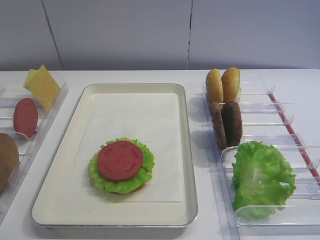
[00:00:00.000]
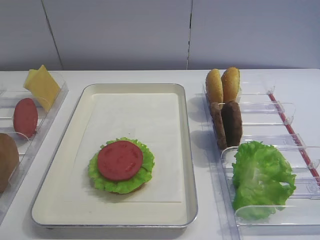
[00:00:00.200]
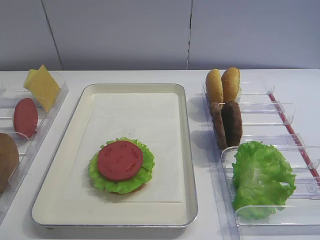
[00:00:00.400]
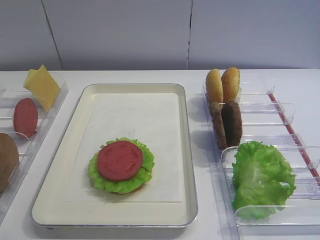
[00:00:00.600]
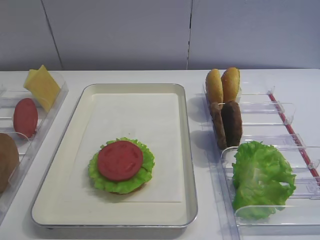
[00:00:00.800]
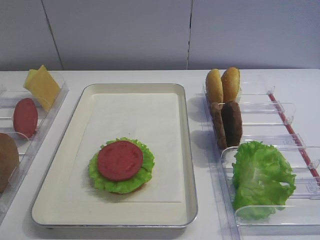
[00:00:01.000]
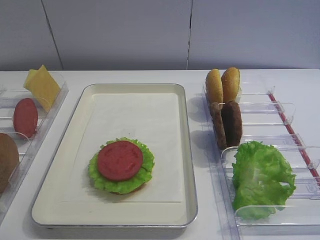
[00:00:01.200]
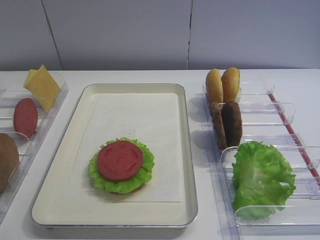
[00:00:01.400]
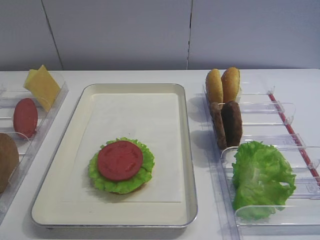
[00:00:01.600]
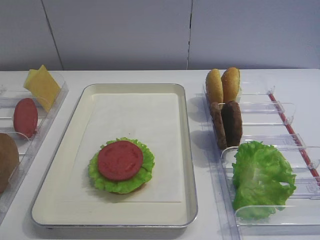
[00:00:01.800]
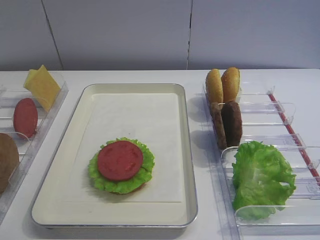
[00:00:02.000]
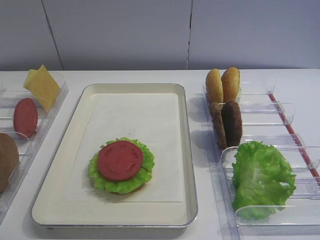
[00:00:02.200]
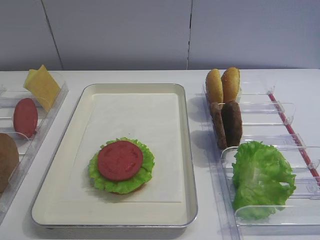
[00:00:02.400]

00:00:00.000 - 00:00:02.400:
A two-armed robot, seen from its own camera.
00:00:00.000 - 00:00:02.400: Both grippers stay put.

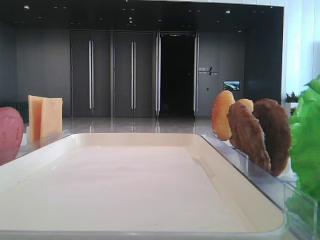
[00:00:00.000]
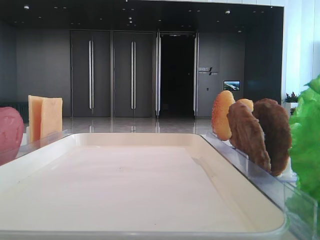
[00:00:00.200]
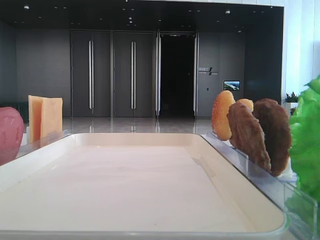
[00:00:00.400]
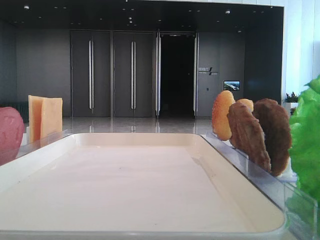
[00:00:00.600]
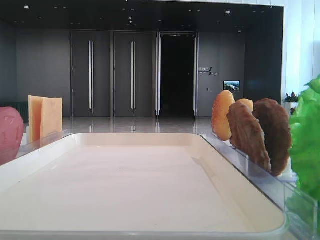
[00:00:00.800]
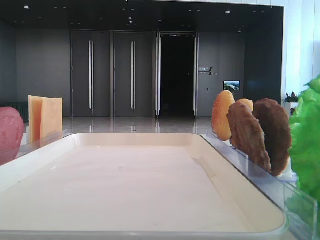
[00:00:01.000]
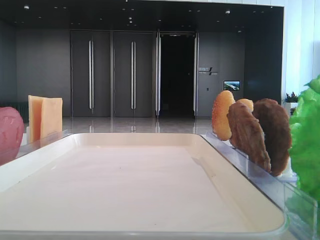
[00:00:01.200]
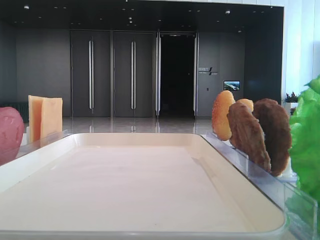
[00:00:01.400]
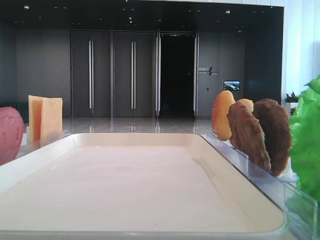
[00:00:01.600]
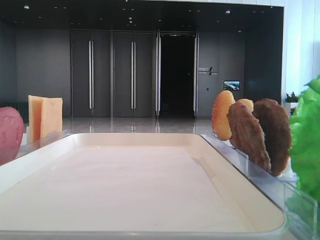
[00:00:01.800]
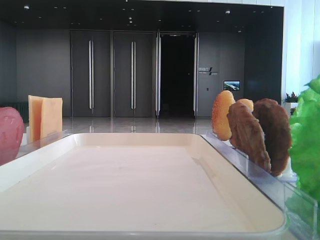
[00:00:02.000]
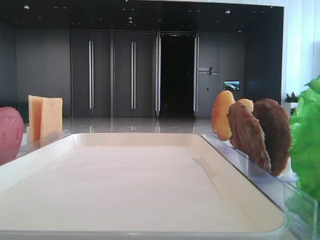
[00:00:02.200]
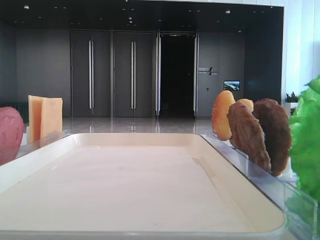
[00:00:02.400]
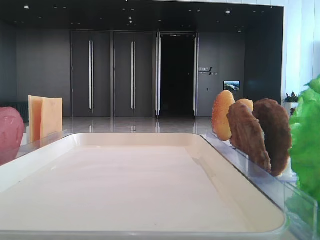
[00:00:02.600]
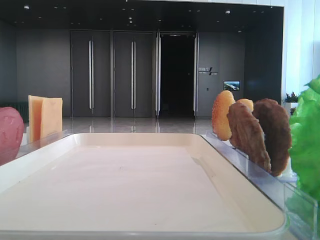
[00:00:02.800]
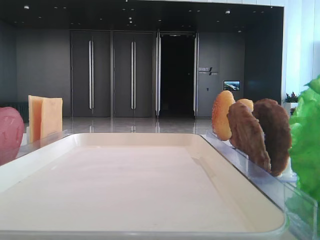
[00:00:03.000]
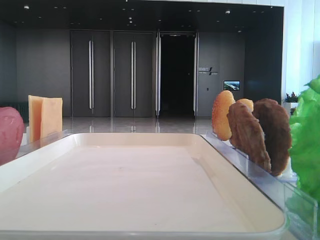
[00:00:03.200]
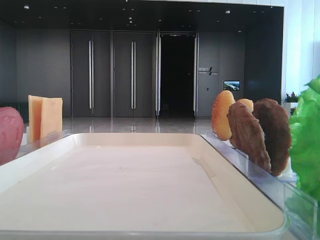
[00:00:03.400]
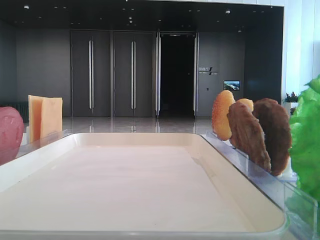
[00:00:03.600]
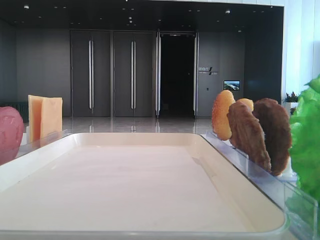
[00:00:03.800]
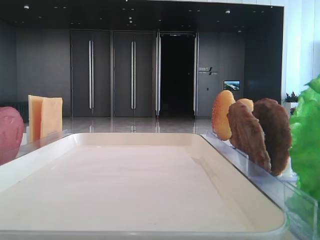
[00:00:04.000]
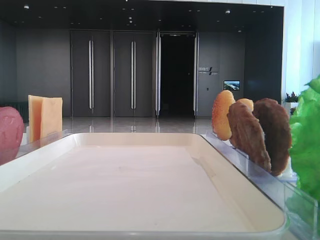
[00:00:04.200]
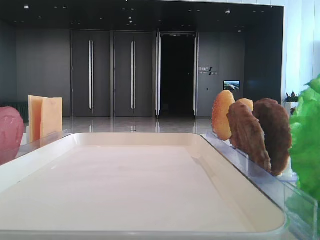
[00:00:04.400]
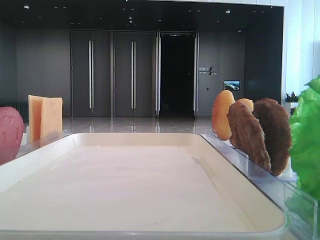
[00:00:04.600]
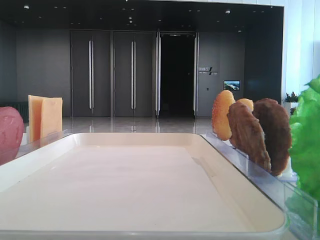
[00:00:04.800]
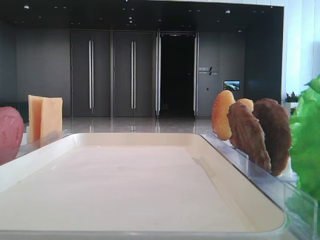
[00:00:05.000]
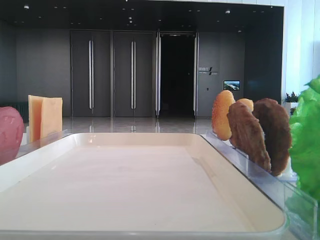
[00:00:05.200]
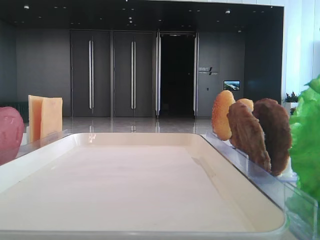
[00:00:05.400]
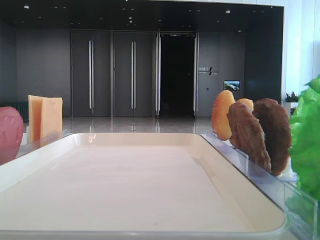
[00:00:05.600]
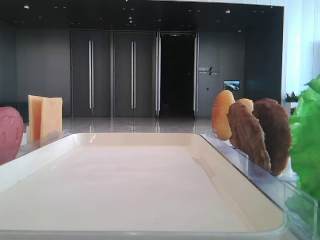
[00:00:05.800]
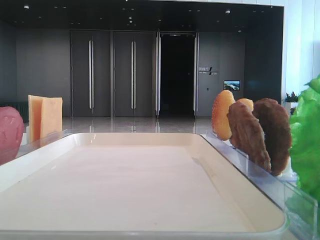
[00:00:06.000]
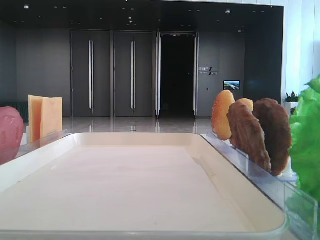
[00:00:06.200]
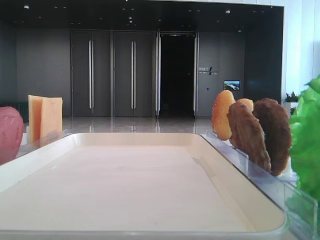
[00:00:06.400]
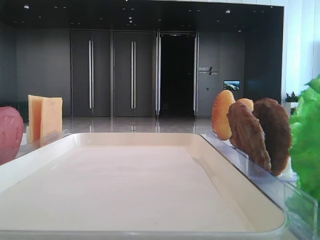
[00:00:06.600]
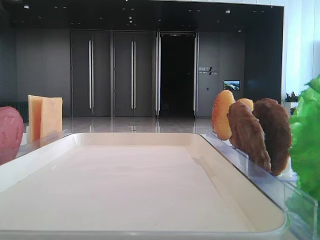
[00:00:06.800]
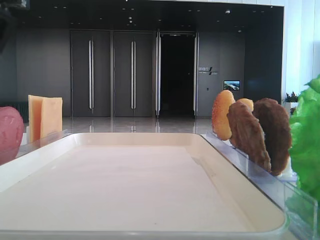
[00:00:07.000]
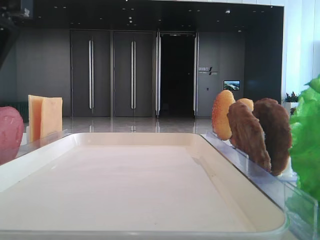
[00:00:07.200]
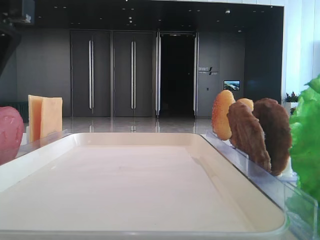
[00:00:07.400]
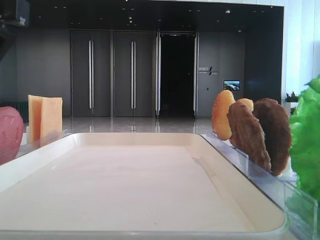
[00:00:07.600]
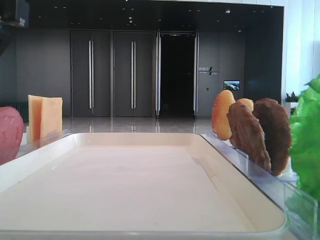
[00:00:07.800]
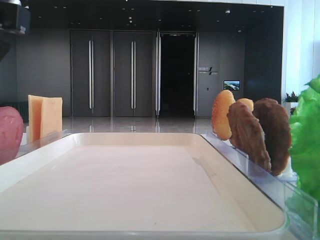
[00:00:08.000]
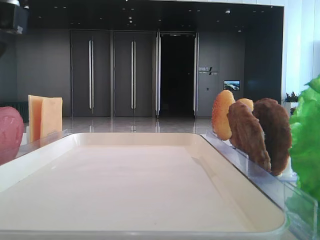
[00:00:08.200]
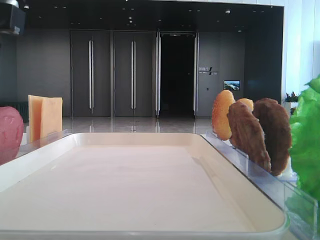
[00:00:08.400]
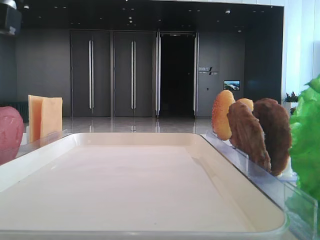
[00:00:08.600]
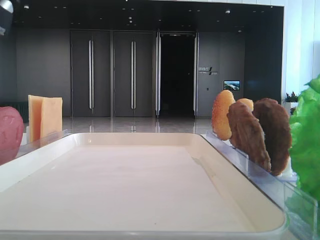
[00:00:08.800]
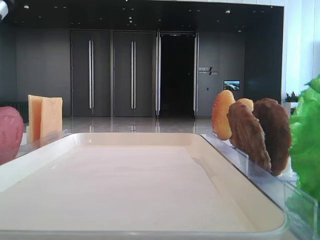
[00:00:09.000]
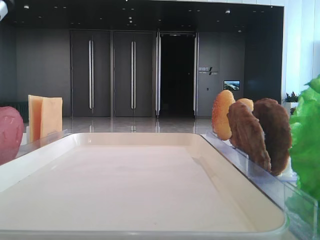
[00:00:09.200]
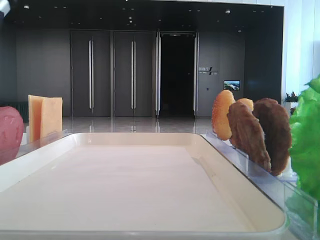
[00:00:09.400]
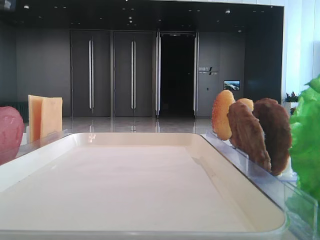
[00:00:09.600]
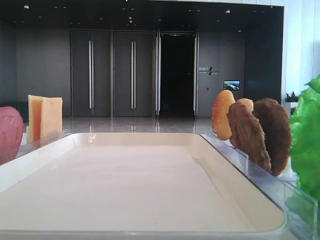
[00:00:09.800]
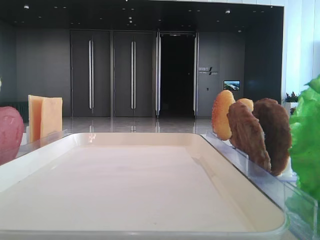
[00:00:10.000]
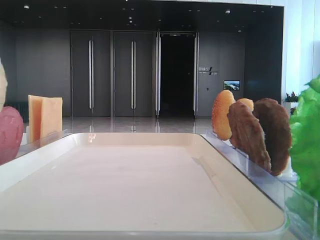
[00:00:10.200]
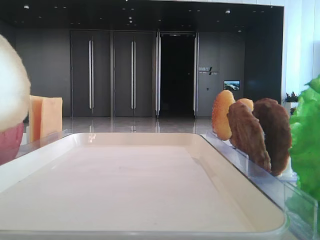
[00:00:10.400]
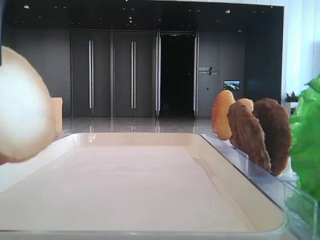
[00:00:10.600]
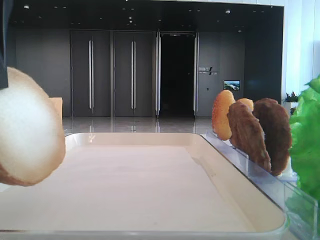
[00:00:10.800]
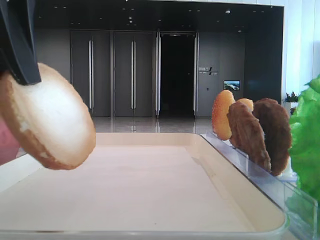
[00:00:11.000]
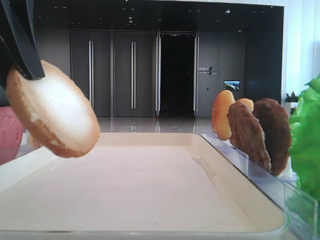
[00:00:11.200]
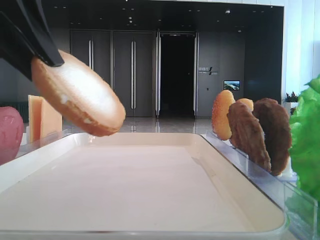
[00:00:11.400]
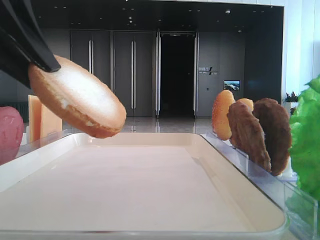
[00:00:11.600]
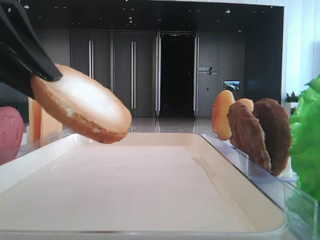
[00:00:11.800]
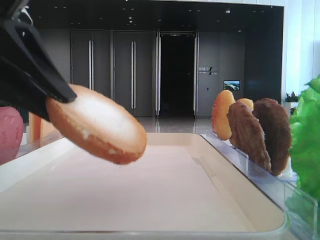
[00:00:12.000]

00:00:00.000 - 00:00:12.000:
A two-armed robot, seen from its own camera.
00:00:09.000 - 00:00:10.400: The left gripper heads upward, covering about 5 cm.
00:00:10.400 - 00:00:12.000: The left gripper moves downward, roughly 10 cm.

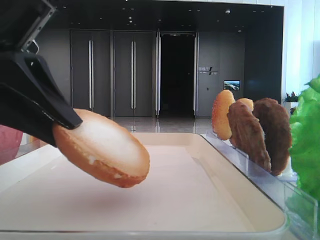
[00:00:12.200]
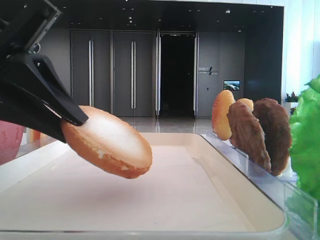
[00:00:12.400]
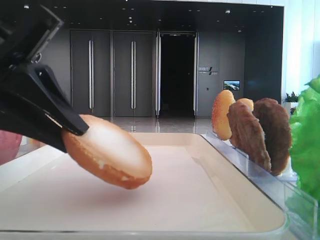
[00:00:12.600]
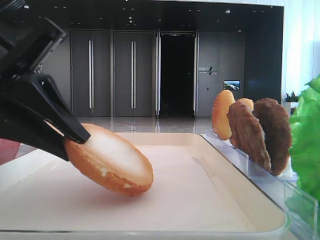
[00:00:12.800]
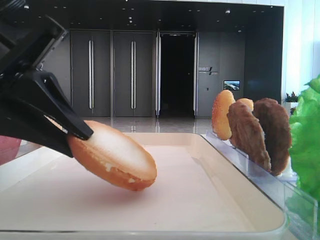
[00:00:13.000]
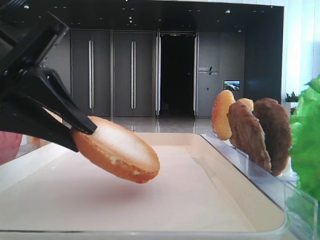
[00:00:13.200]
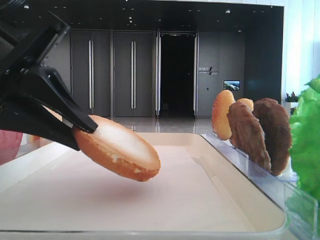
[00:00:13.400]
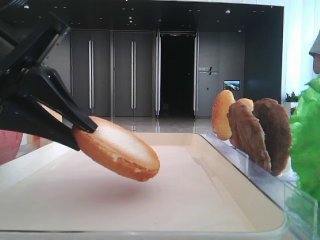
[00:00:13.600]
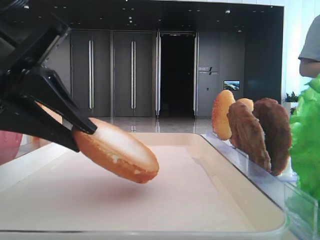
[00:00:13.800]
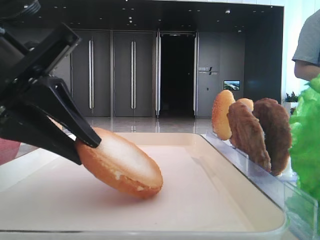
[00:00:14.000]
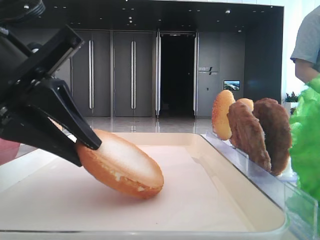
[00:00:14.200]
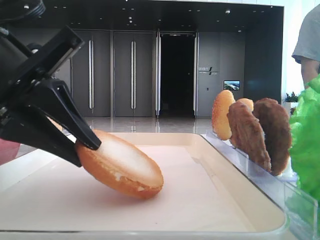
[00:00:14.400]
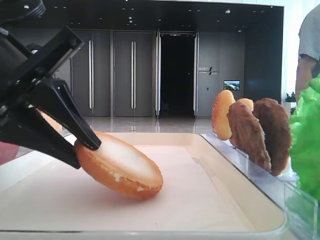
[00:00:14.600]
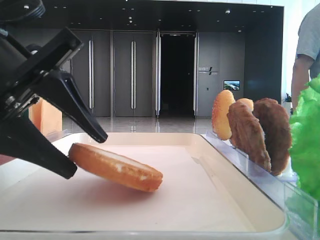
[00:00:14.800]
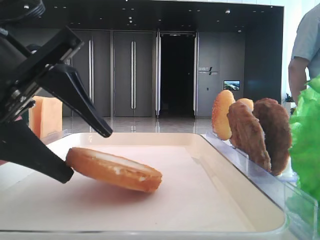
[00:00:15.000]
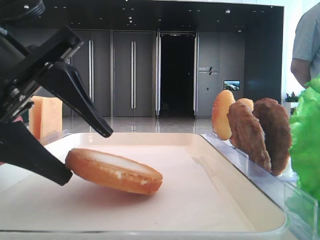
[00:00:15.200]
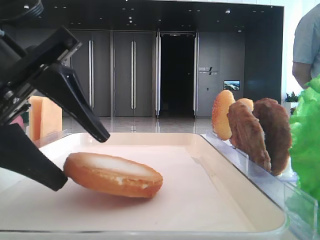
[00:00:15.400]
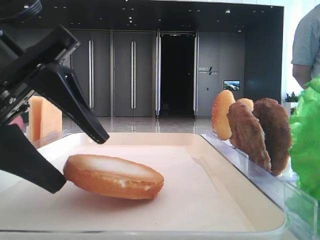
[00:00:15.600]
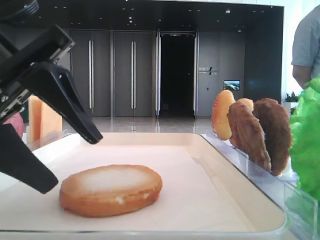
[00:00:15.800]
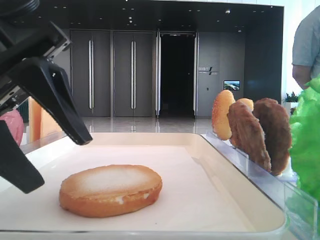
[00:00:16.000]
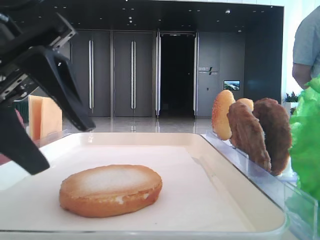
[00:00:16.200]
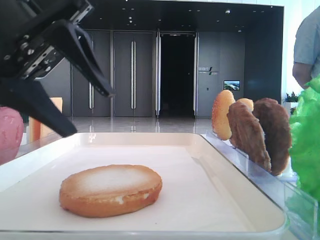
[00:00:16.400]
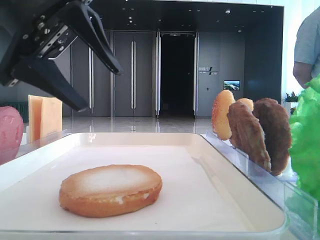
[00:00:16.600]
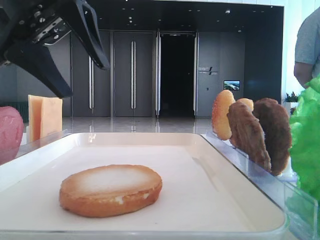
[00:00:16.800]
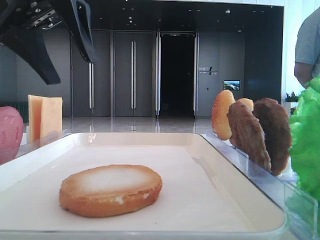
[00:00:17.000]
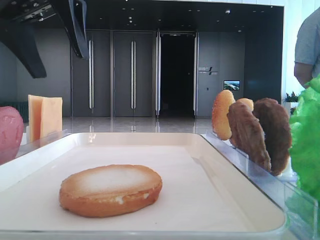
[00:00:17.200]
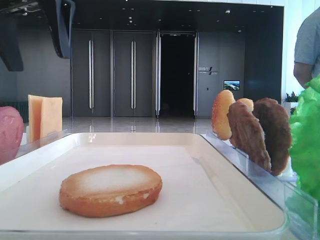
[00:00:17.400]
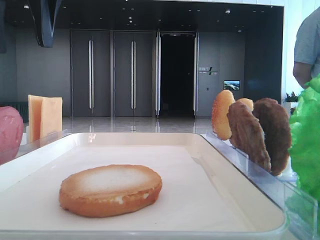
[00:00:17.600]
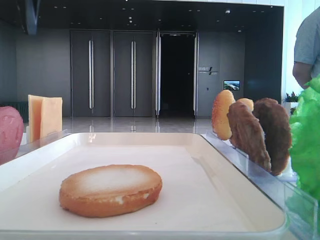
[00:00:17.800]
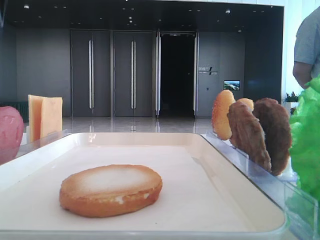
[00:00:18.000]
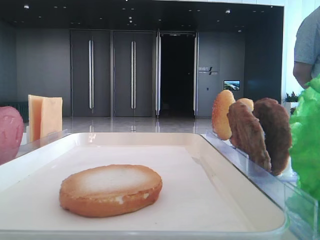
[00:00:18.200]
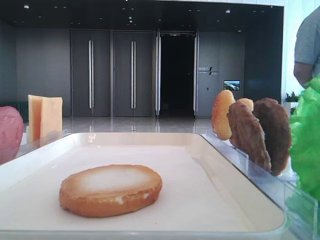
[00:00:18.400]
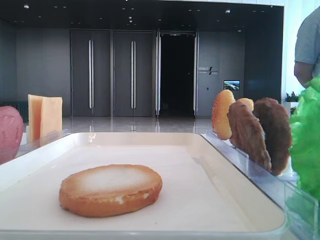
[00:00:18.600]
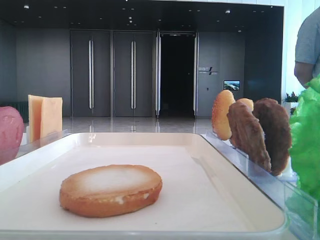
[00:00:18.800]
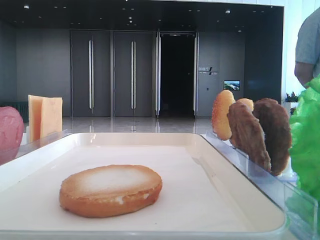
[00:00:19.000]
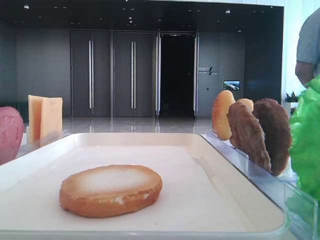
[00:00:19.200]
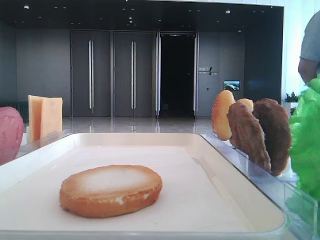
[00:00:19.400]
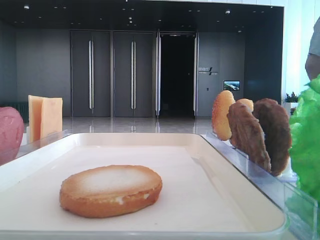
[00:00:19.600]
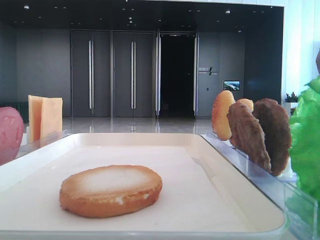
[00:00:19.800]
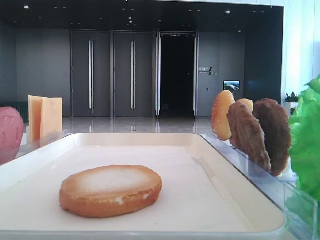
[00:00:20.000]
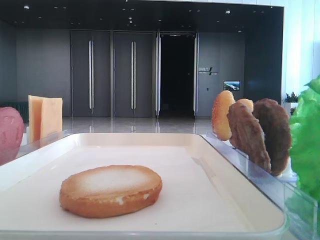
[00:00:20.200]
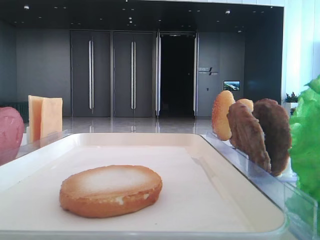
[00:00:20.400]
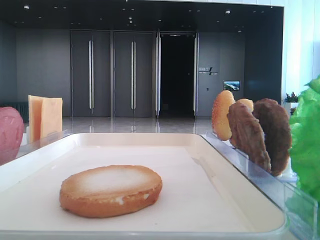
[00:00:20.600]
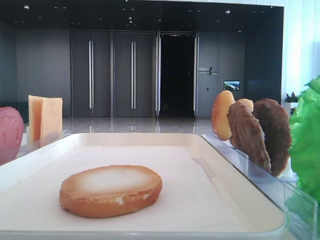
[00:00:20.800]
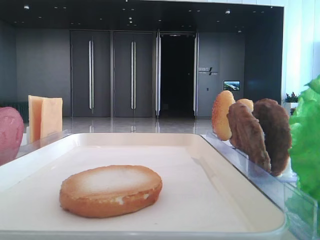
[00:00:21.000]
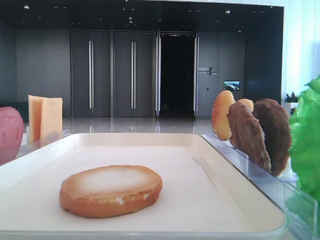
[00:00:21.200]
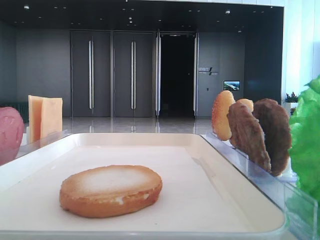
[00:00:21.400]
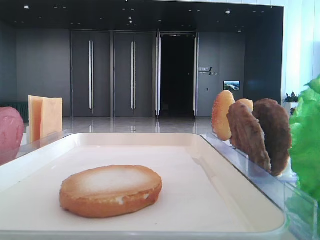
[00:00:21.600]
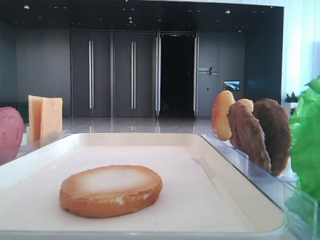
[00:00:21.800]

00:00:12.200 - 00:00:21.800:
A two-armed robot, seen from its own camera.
Step, 00:00:12.200 - 00:00:15.600: Place the bread on the tray with the left hand.
00:00:12.200 - 00:00:13.800: There are only small adjustments of the grippers.
00:00:13.800 - 00:00:15.400: The left gripper opens its fingers.
00:00:15.400 - 00:00:17.000: The left gripper moves upward and forward, some 15 cm.
00:00:17.000 - 00:00:18.600: The left gripper travels to the left and upward by about 15 cm.
00:00:18.600 - 00:00:20.200: The left gripper is displaced backward by roughly 35 cm.
